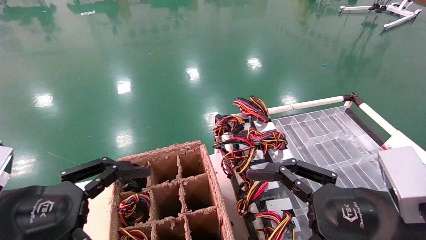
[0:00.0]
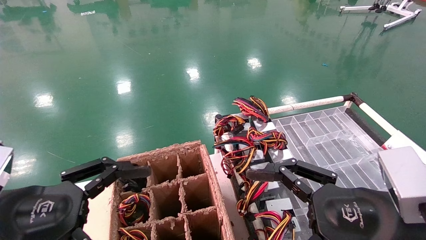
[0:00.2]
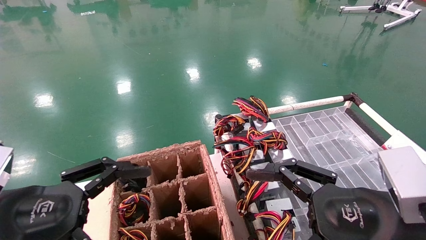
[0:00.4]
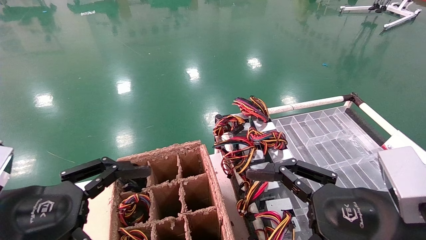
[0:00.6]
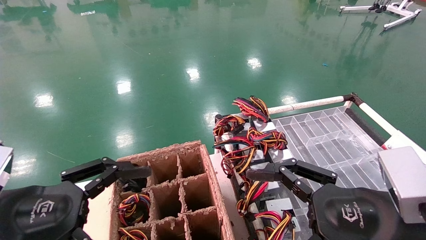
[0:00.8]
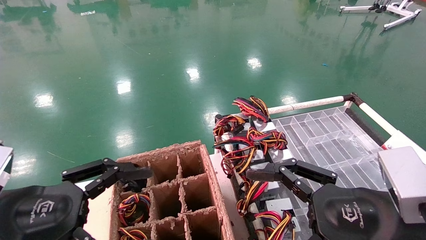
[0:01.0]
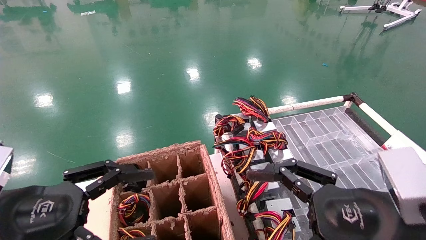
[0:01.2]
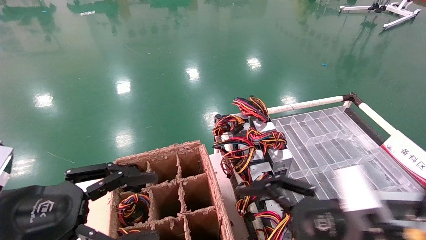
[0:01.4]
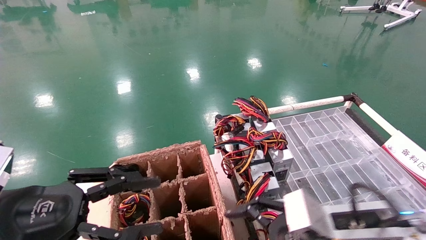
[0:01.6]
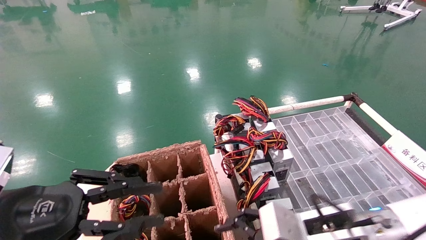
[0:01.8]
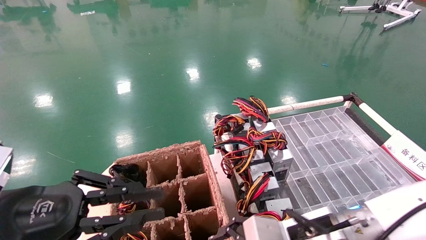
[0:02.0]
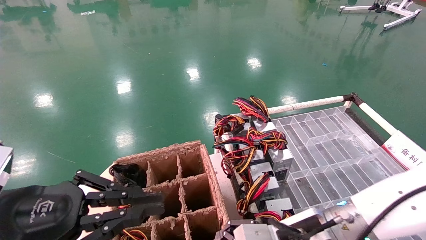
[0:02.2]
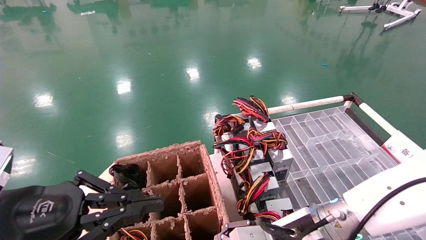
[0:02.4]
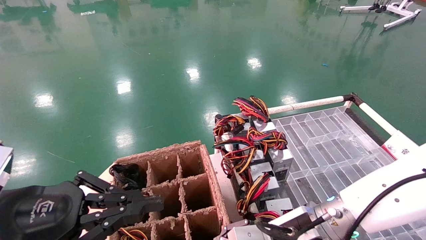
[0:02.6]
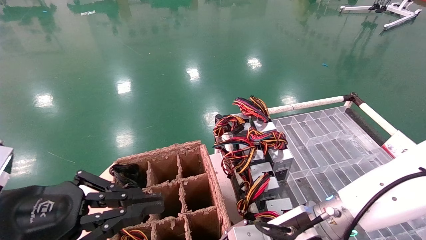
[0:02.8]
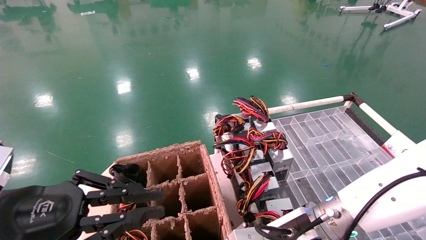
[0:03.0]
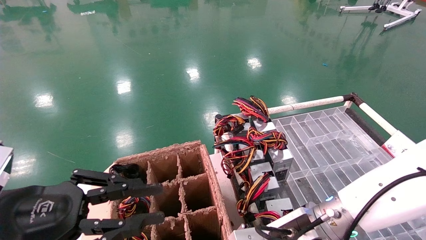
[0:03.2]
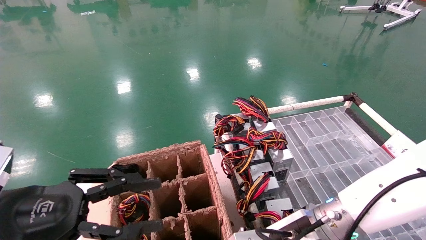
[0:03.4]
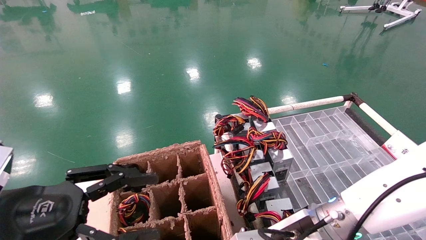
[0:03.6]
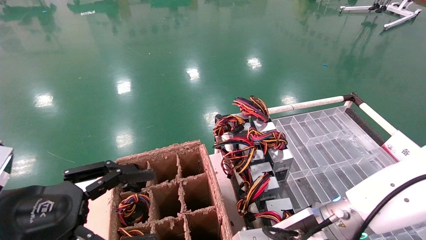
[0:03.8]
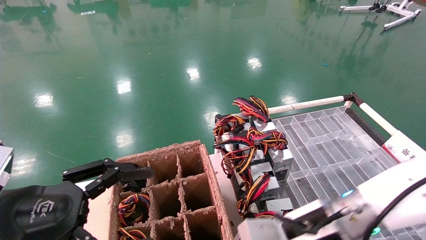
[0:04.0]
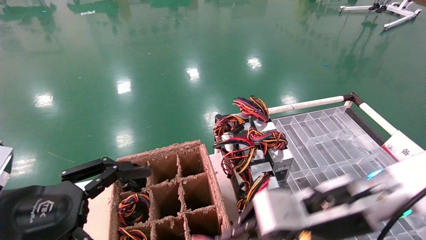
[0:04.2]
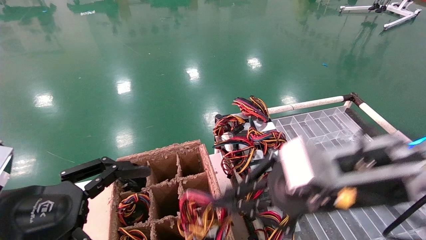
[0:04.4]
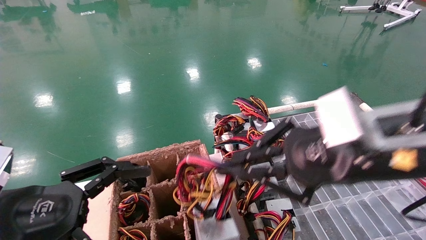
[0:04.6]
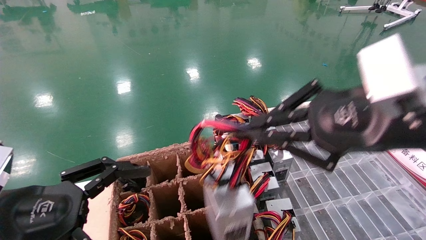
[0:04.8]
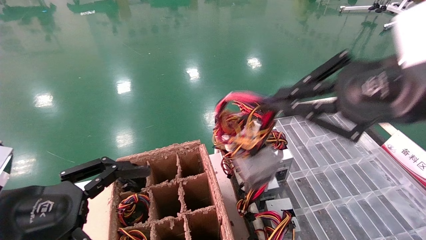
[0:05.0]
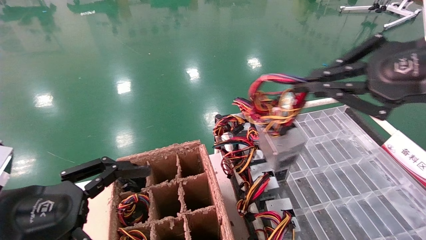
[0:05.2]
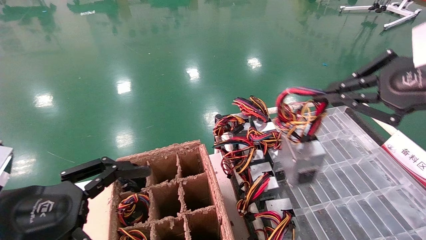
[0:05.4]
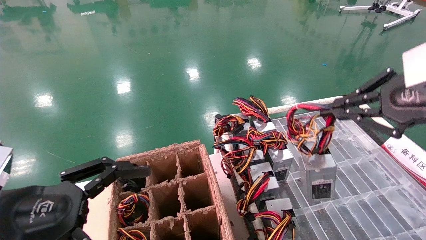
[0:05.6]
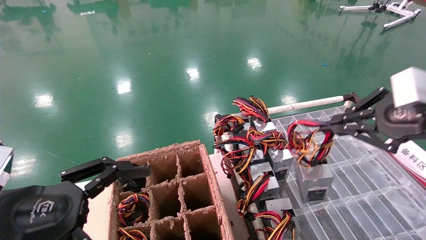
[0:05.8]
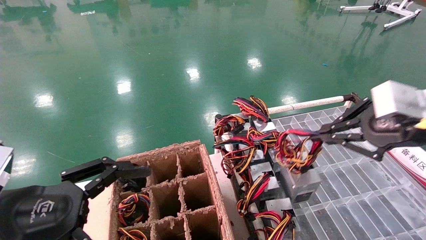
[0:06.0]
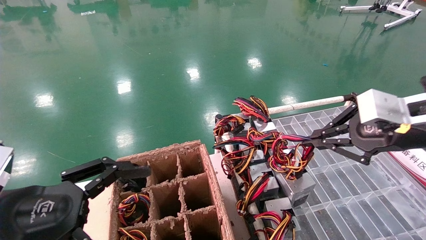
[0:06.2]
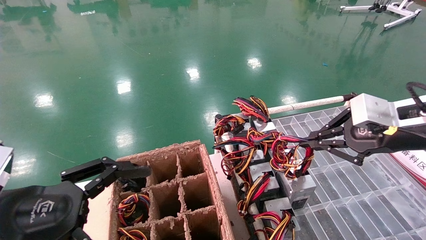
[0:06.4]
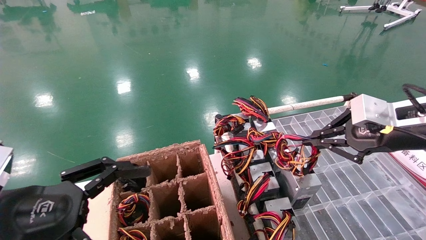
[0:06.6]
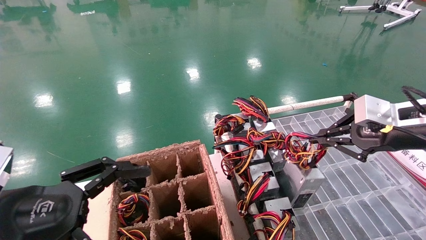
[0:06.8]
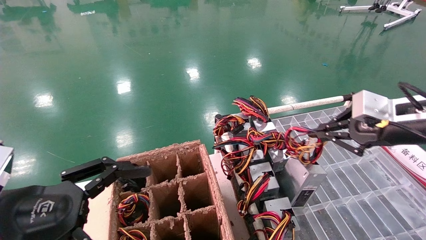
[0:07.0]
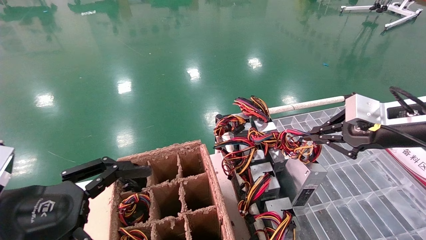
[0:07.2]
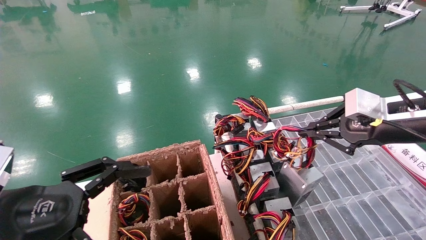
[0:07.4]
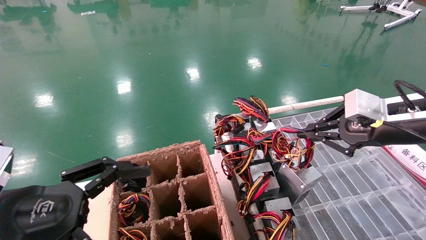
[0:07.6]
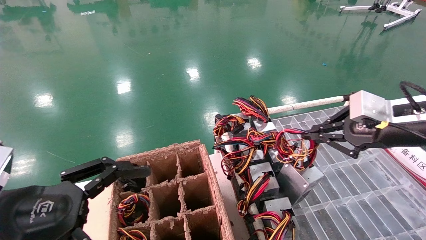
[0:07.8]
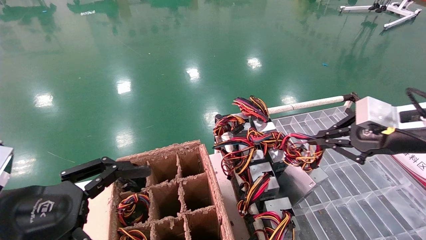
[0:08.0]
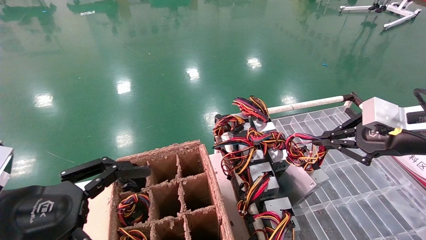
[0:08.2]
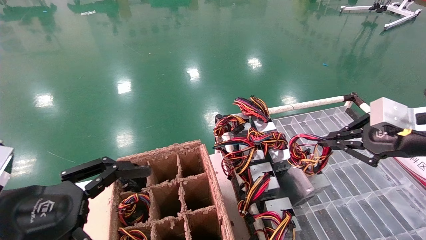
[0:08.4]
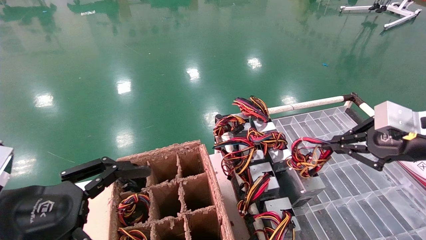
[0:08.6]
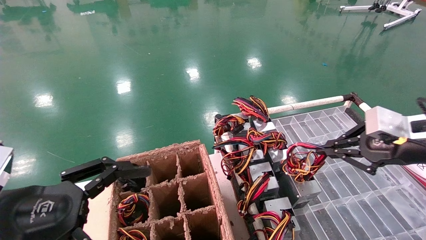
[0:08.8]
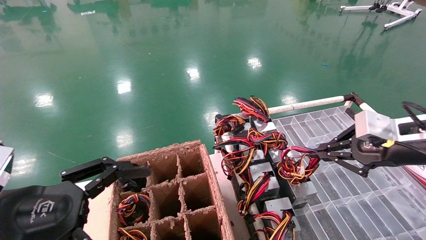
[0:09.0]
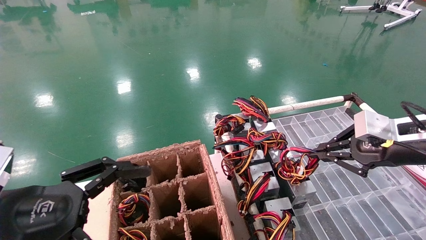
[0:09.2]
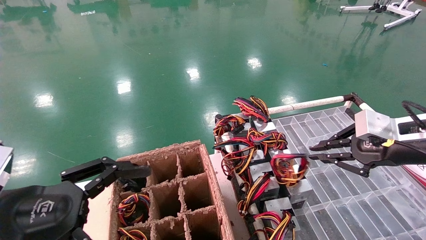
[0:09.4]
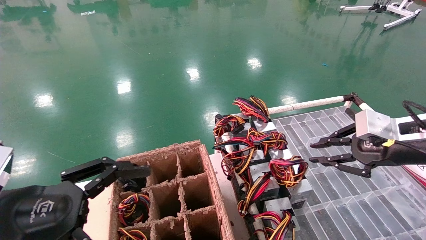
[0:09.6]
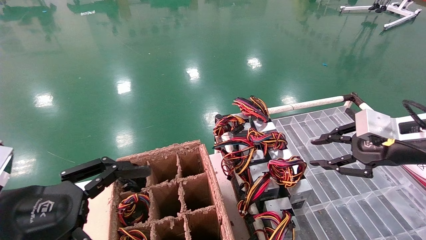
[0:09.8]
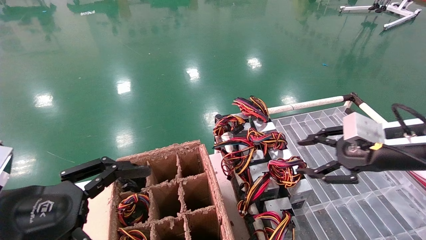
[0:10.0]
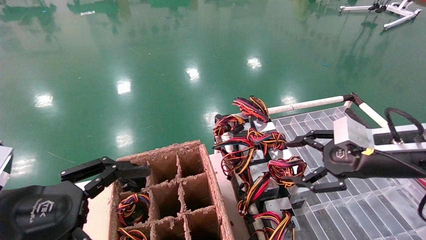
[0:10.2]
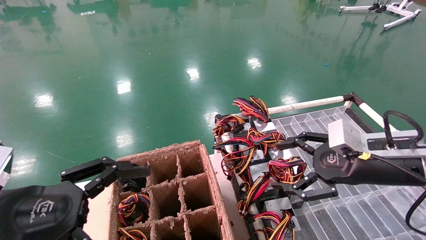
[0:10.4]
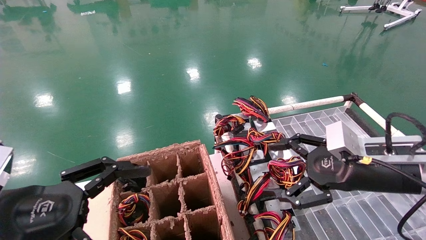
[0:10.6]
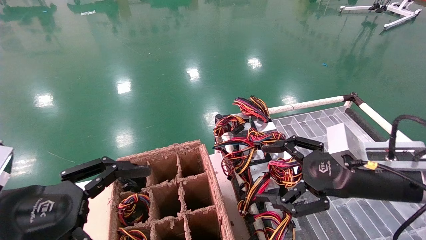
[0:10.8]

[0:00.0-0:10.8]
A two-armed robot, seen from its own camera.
Step, 1.2 to 3.6 s: Grab and lift the power supply from the large box.
Step, 3.8 to 9.4 s: Place the power supply on the operating table.
0.0 to 1.6 s: The right gripper shifts approximately 10 cm forward and downward; the left gripper closes up.
1.6 to 3.0 s: The left gripper closes up. Meanwhile the right gripper travels to the left by approximately 5 cm, and closes its fingers.
3.0 to 4.6 s: The right gripper goes roughly 20 cm upward, backward and to the right, and closes. Meanwhile the left gripper opens up.
4.6 to 6.2 s: The right gripper travels to the right and forward by about 15 cm.
6.2 to 7.8 s: The grippers move only a little.
7.8 to 9.2 s: There are only small adjustments of the grippers.
9.2 to 10.8 s: The right gripper is displaced to the left and downward by some 10 cm, and opens up.

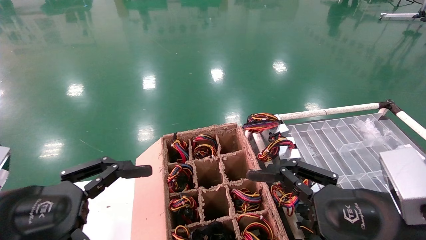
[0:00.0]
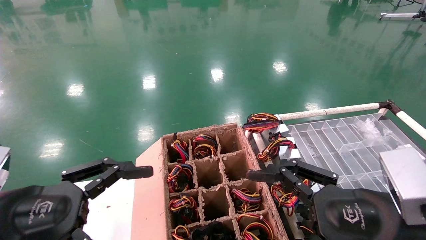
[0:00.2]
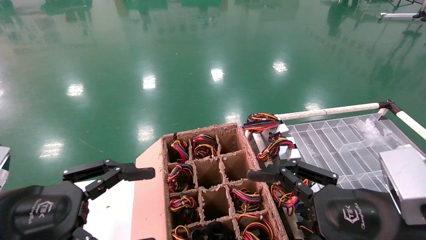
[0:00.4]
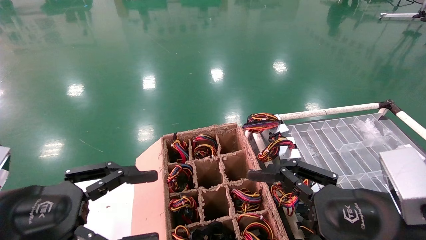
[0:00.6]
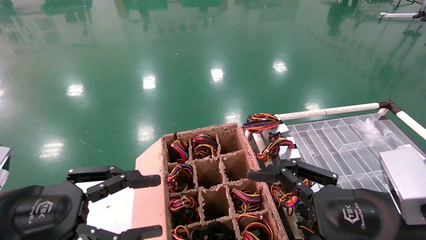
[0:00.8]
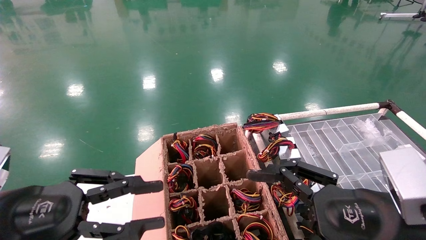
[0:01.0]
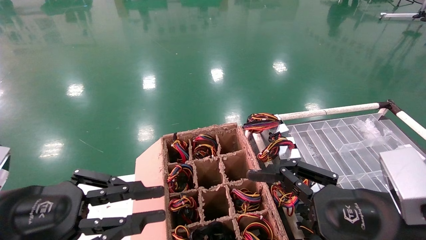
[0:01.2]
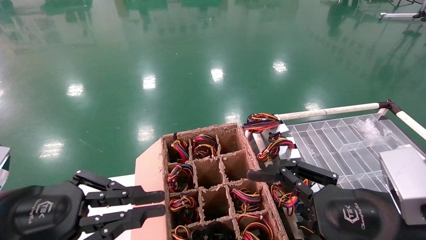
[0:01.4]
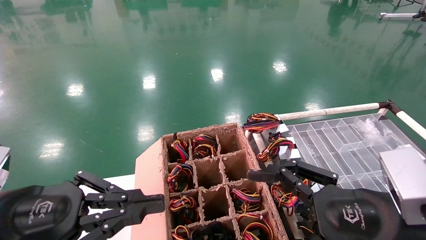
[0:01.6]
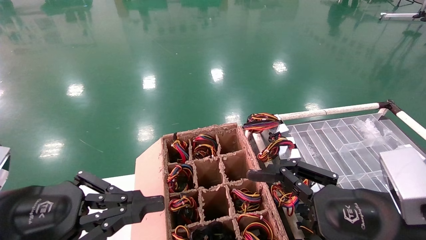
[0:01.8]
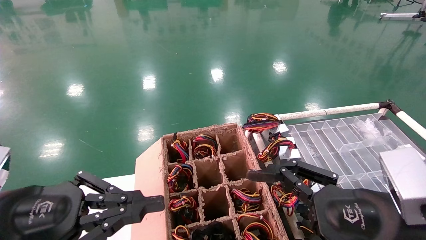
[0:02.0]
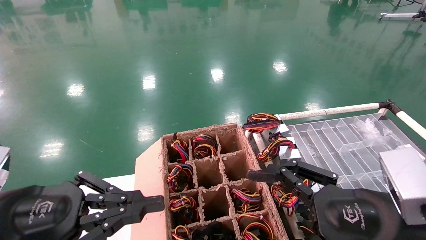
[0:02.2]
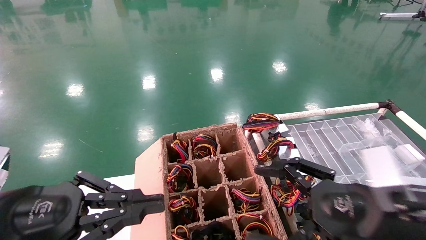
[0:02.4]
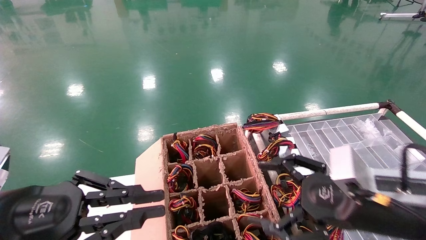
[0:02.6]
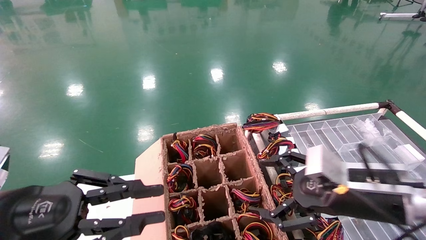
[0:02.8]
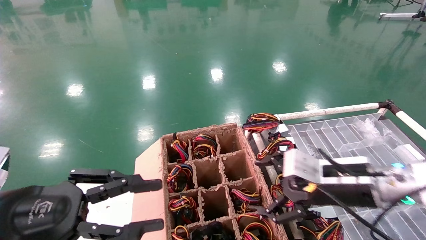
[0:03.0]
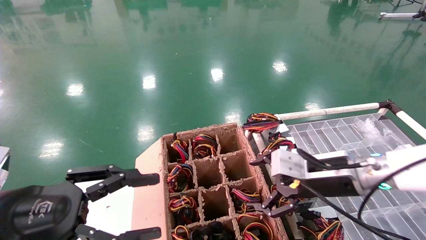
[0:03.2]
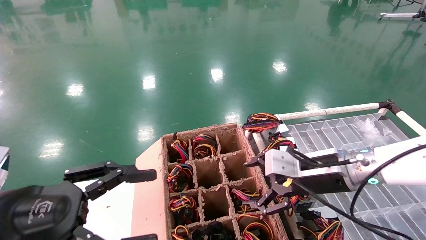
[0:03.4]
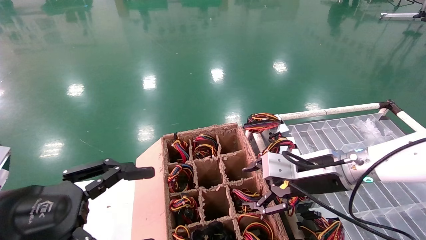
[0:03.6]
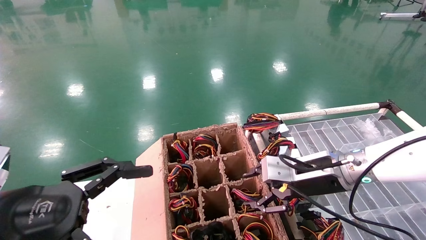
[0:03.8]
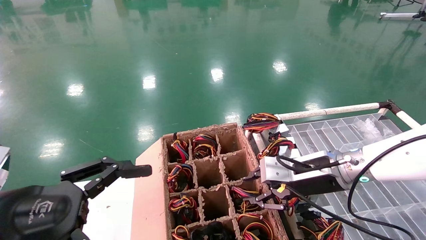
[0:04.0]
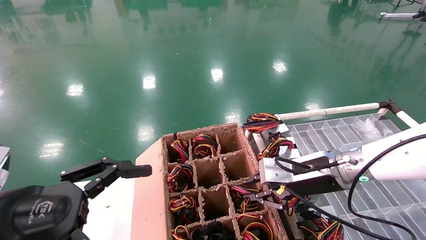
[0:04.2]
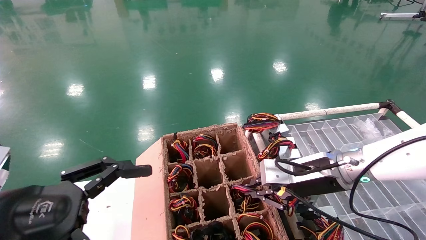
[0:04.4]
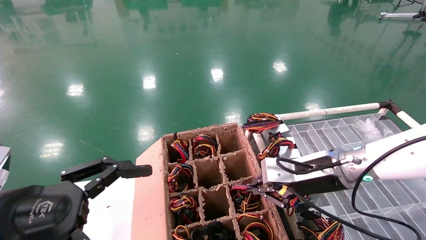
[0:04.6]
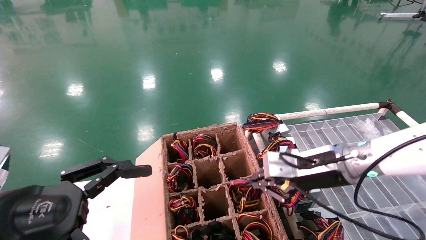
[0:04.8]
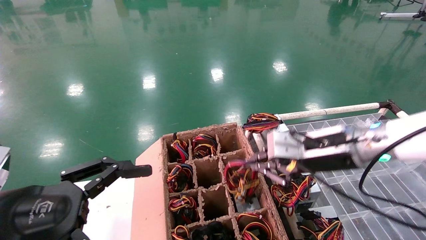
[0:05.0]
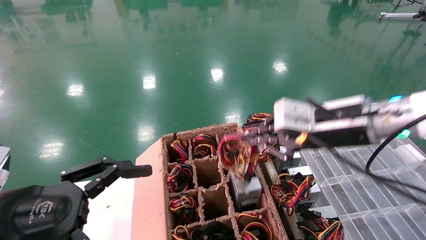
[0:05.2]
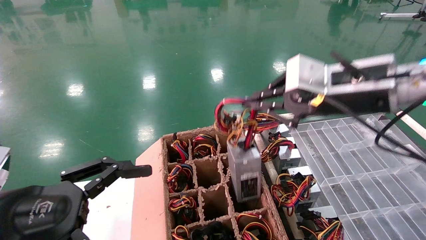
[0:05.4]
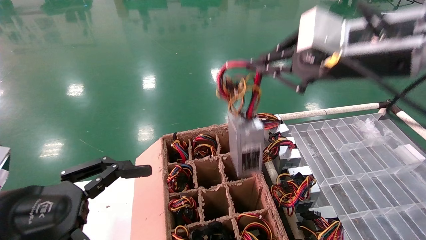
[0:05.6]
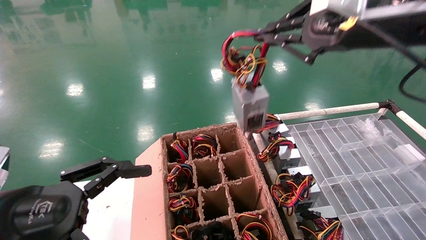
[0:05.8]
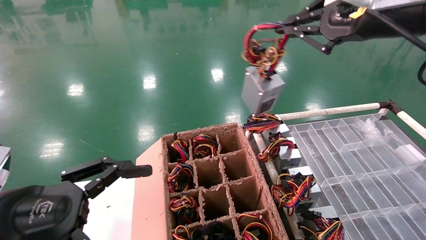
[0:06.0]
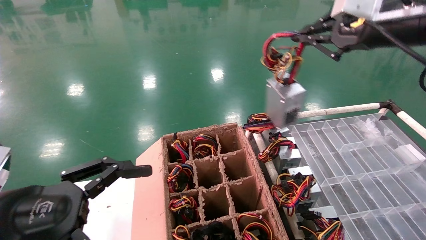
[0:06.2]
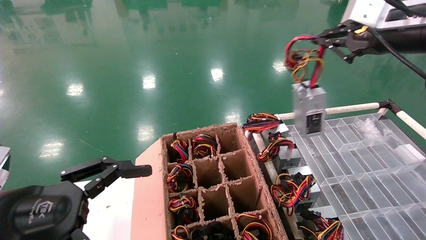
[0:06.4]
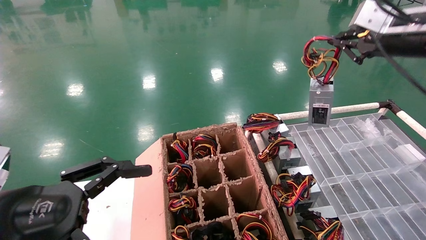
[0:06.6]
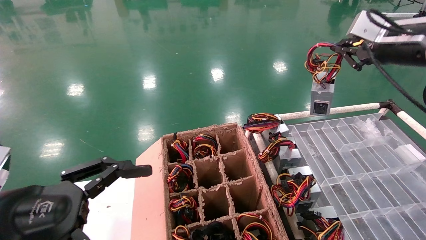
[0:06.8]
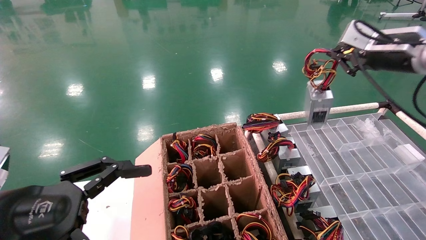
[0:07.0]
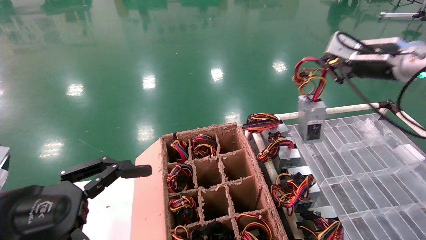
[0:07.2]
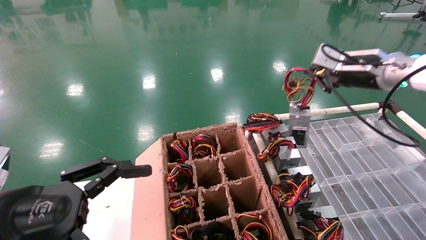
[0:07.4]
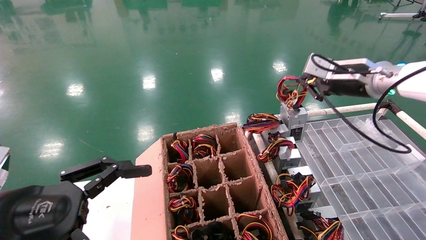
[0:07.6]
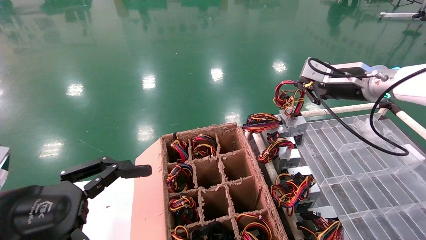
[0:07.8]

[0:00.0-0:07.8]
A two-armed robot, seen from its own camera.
Step, 1.8 to 4.2 s: Grab and lift the power supply from the large box.
0.0 to 1.6 s: The left gripper closes up.
1.6 to 3.2 s: The left gripper opens its fingers. Meanwhile the right gripper travels forward by some 15 cm.
3.2 to 4.6 s: The right gripper closes up, while the left gripper opens up.
4.6 to 6.2 s: The right gripper moves upward and to the right, some 25 cm.
6.2 to 7.8 s: The right gripper heads forward and downward, covering some 15 cm.
